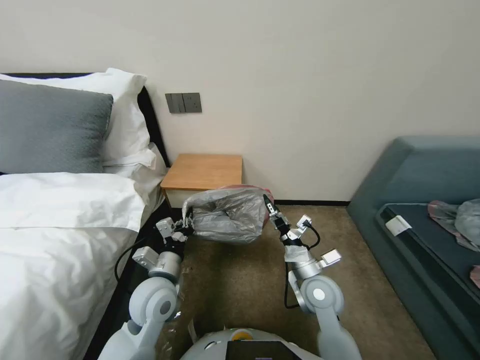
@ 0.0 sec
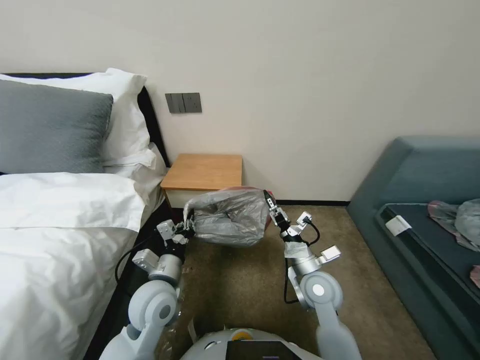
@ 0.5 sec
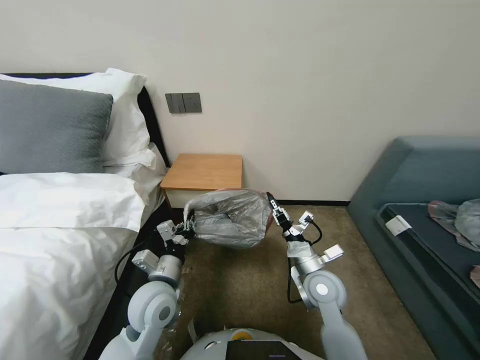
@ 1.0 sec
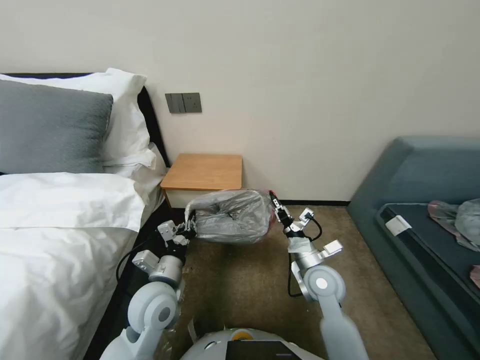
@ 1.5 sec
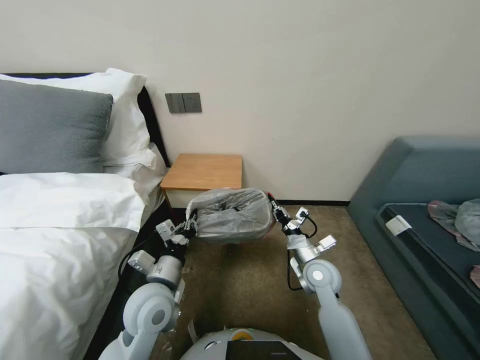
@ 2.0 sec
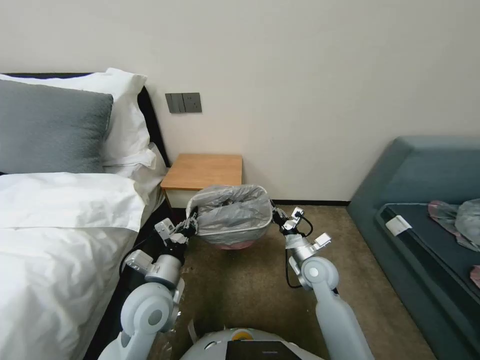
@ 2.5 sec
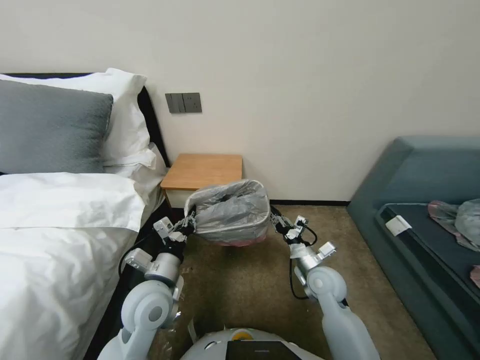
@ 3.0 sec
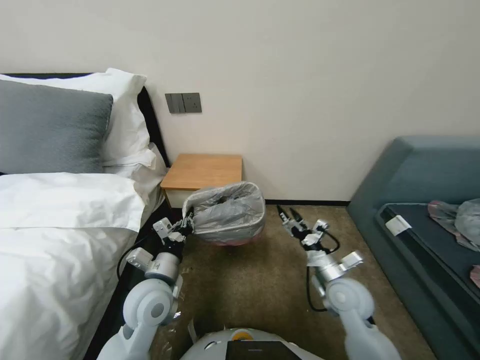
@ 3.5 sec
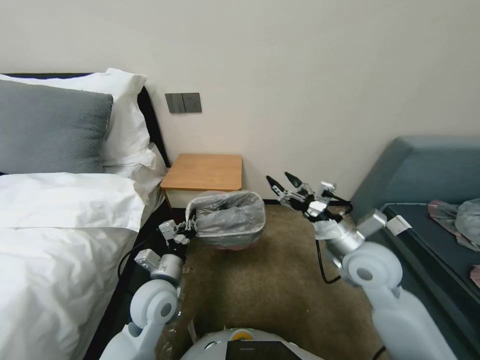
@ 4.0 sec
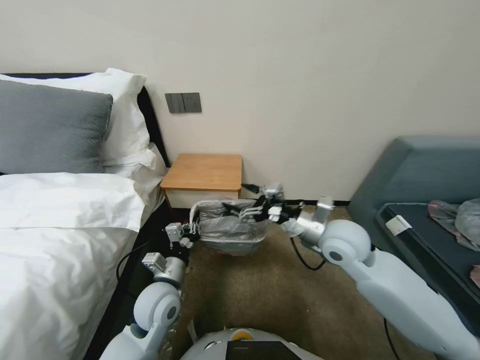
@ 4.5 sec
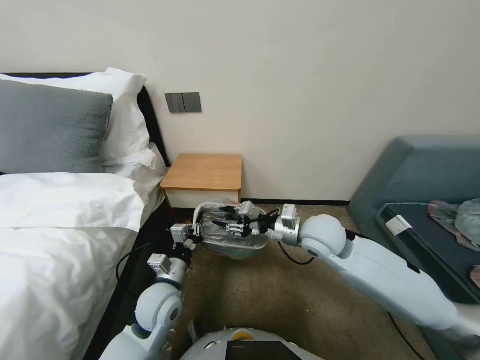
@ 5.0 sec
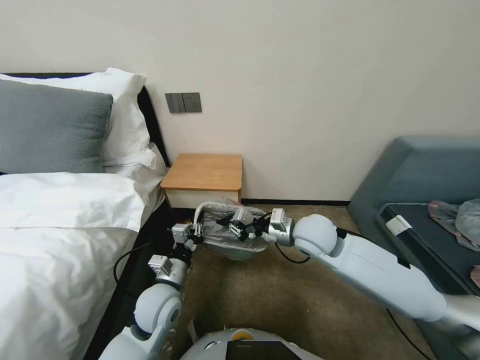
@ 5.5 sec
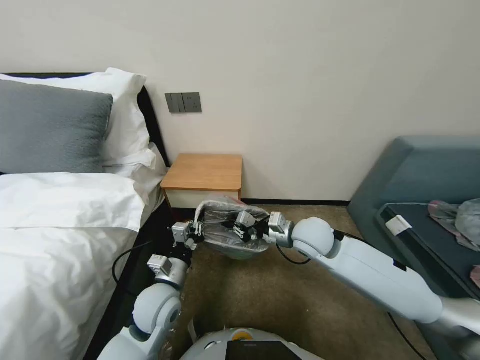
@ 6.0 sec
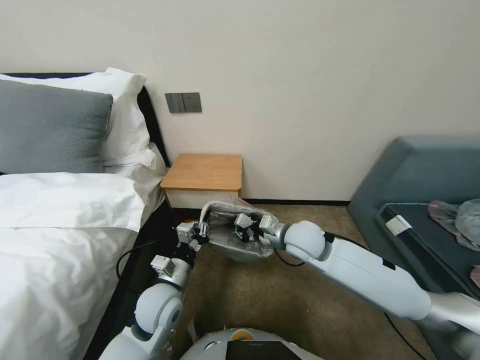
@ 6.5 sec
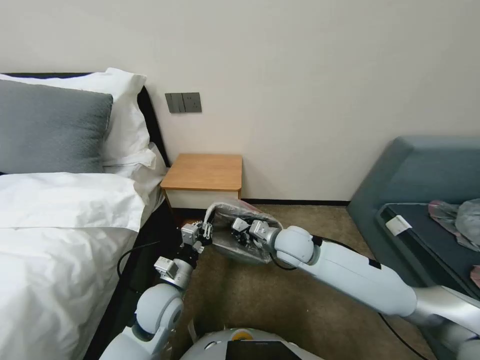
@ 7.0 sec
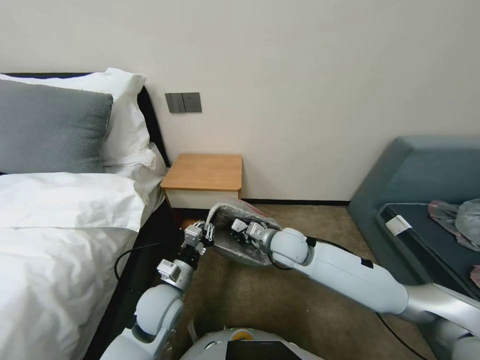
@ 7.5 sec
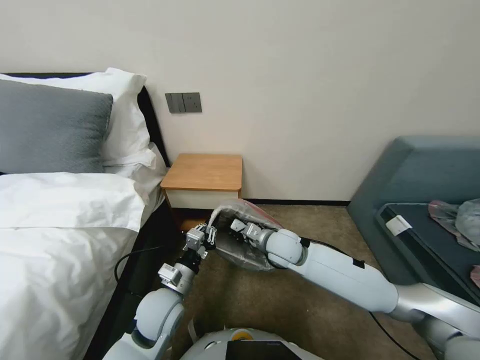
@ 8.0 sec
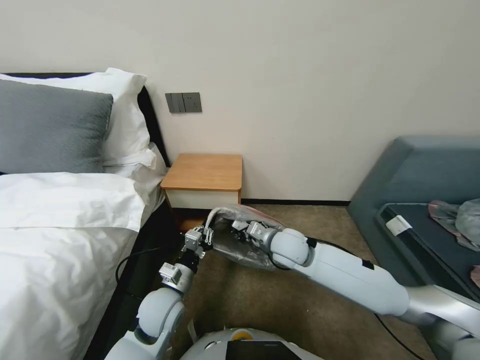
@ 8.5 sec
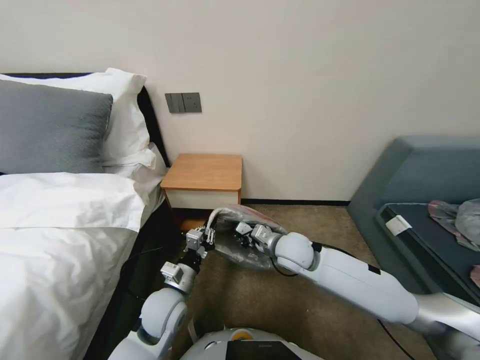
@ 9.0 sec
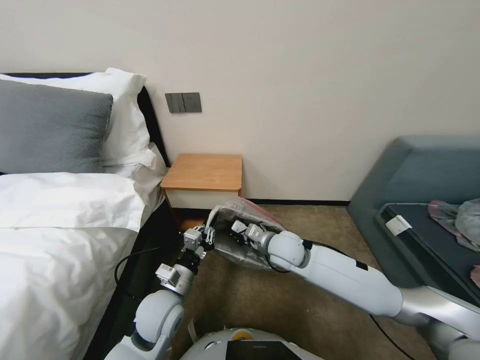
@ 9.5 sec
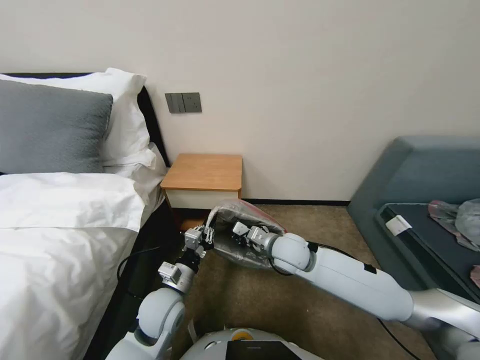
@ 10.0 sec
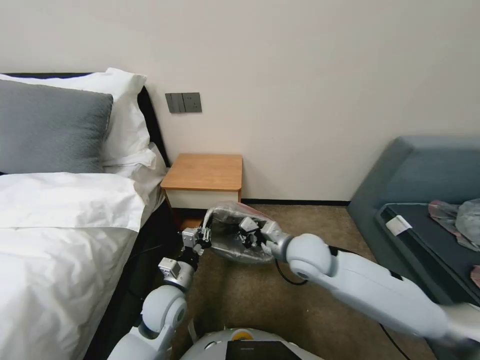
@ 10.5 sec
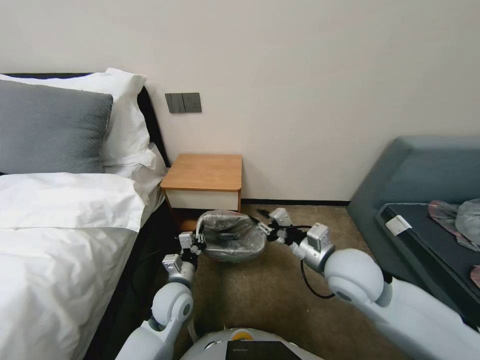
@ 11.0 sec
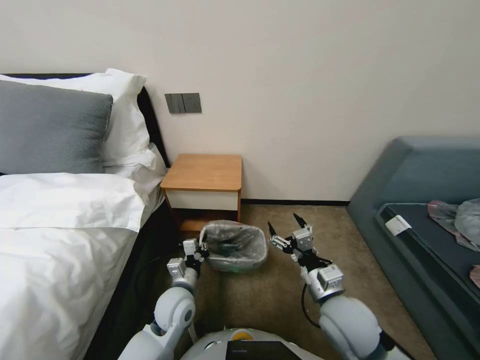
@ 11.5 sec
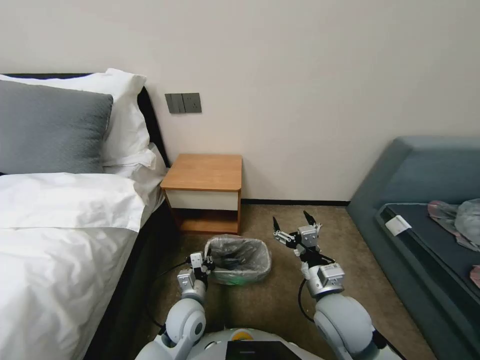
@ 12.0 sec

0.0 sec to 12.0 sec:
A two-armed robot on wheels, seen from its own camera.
Task of the whole recording: Pick up the garbage bag from the table and place it over the trash can.
0.0 sec to 2.0 sec: The right gripper is displaced forward by approximately 5 cm, and closes.
2.0 sec to 4.0 sec: The right gripper travels upward by roughly 10 cm, and opens its fingers.
4.0 sec to 6.0 sec: The right gripper travels to the left and forward by roughly 10 cm, and closes its fingers.
6.0 sec to 8.0 sec: The right gripper travels downward and to the left by some 10 cm.
8.0 sec to 10.0 sec: There are only small adjustments of the grippers.
10.0 sec to 12.0 sec: The left gripper is displaced downward by approximately 5 cm, while the right gripper moves backward and to the right, roughly 15 cm, and opens.

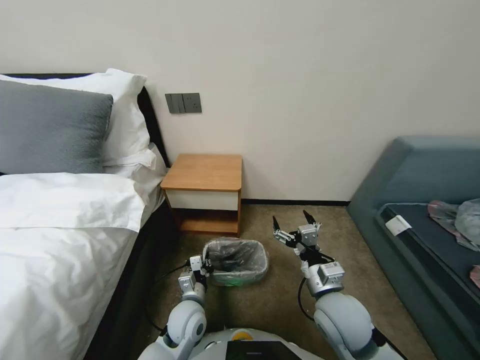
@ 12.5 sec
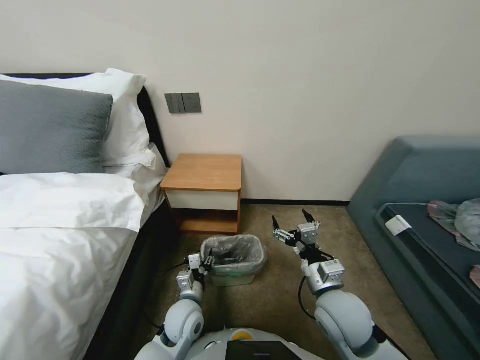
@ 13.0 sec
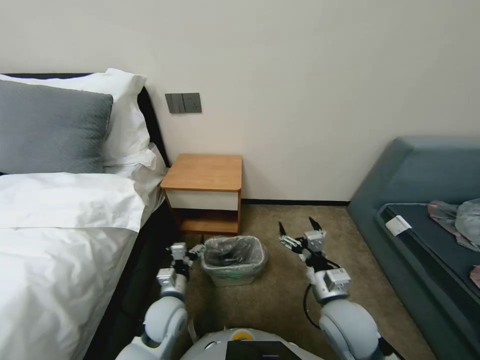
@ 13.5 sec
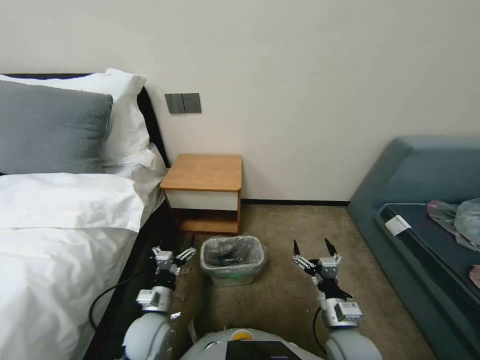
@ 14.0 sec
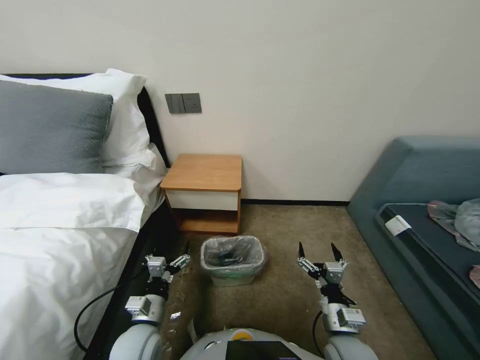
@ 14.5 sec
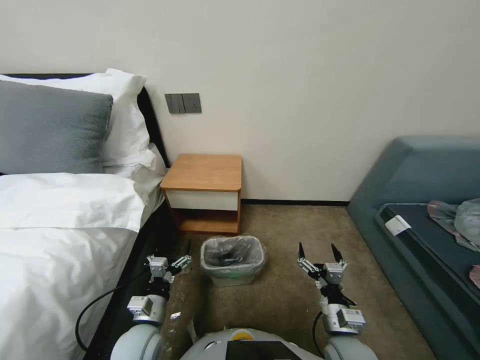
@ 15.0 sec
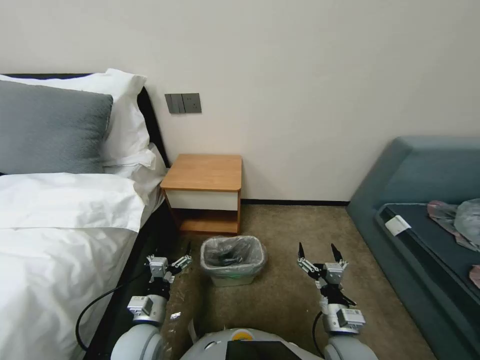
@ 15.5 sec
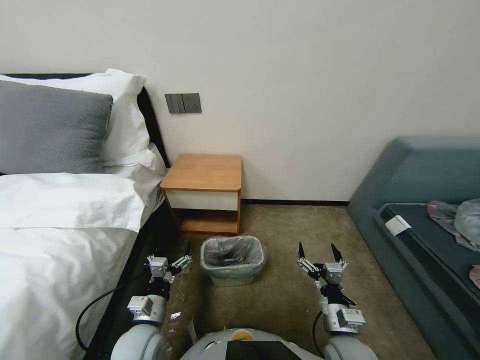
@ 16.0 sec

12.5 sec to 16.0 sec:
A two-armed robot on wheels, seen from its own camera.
Task of the whole recording: Pick up the garbage bag from the table and place it over the trash can.
12.5 sec to 14.5 sec: The left gripper moves to the left and backward, roughly 10 cm, and opens its fingers; the right gripper heads downward and backward, covering approximately 10 cm.
14.5 sec to 16.0 sec: Neither gripper changes place.

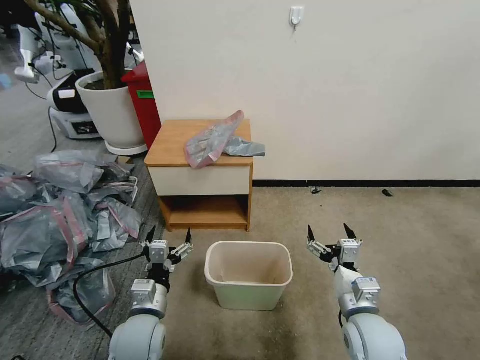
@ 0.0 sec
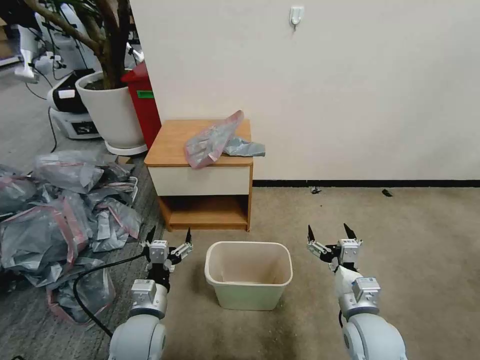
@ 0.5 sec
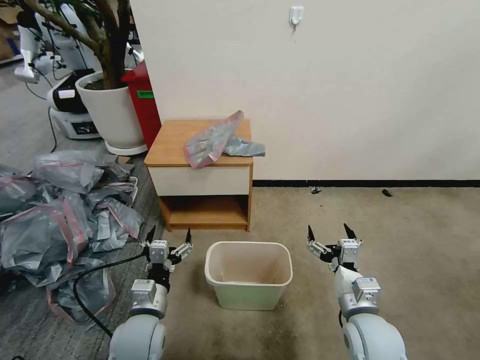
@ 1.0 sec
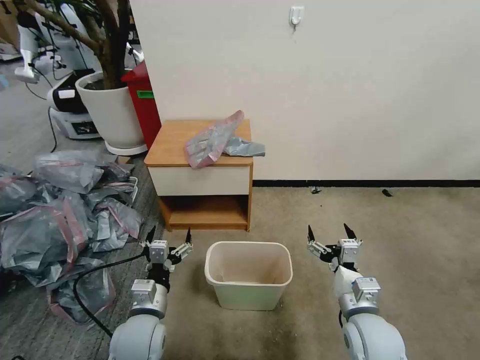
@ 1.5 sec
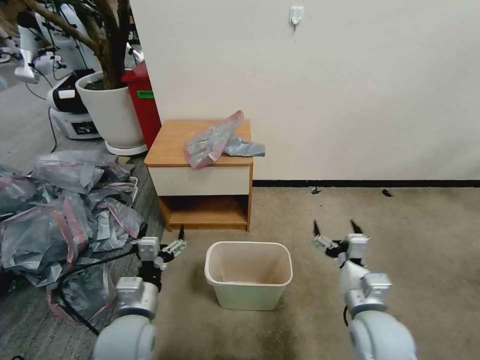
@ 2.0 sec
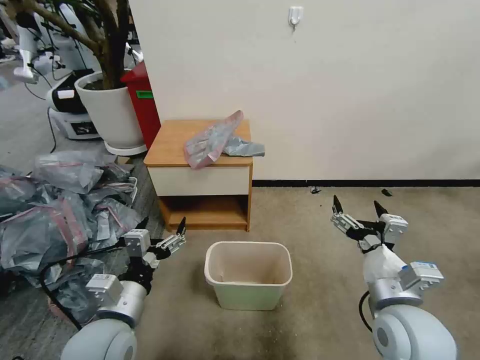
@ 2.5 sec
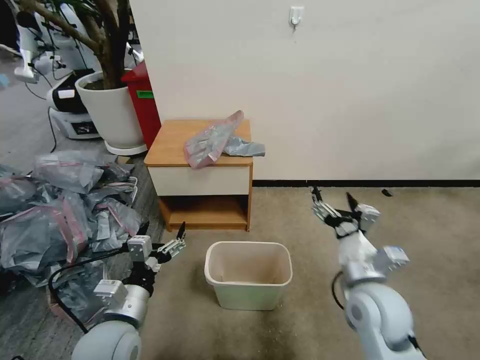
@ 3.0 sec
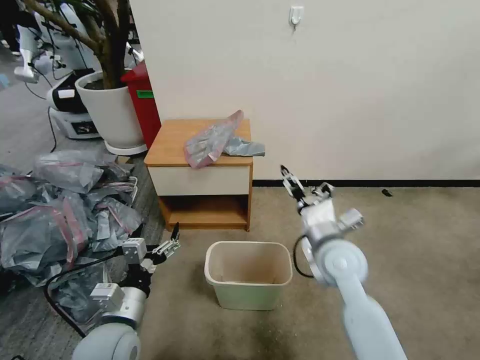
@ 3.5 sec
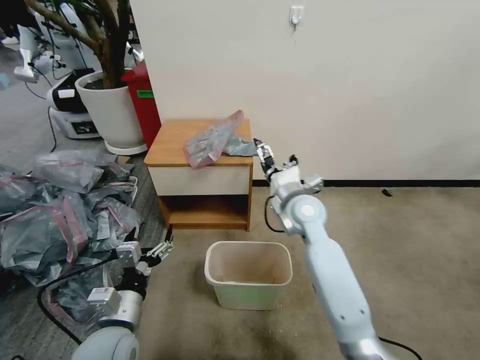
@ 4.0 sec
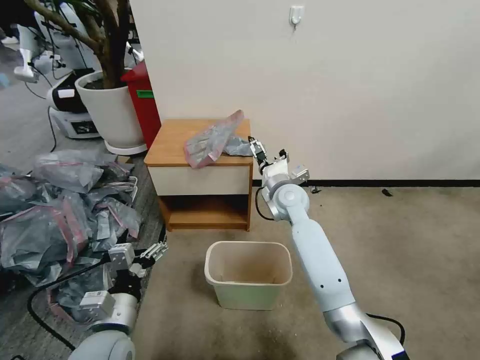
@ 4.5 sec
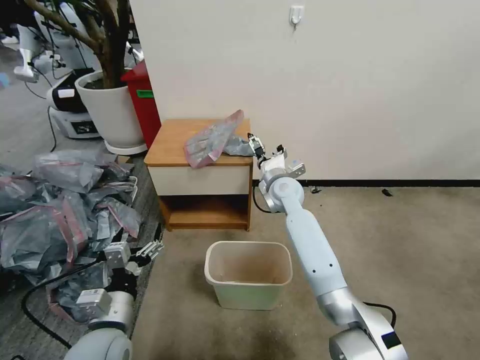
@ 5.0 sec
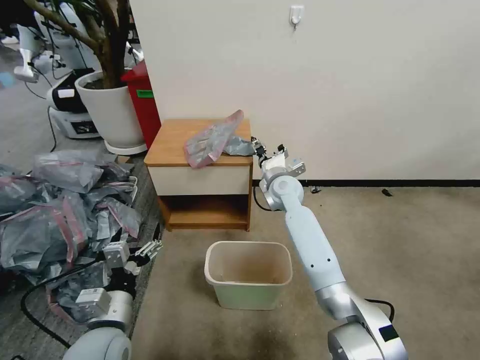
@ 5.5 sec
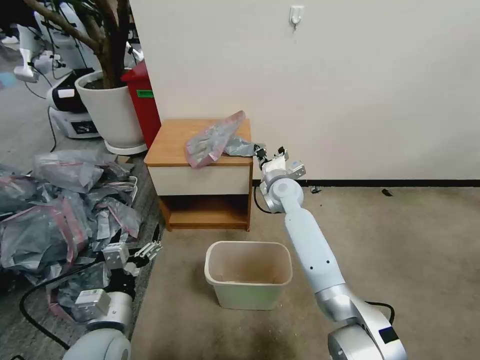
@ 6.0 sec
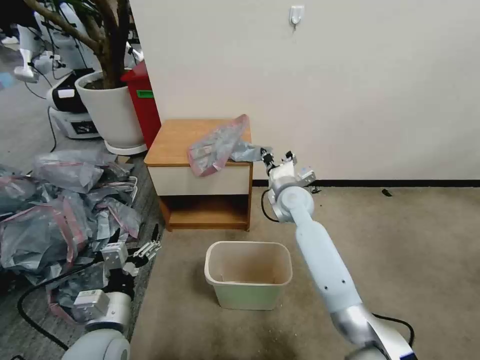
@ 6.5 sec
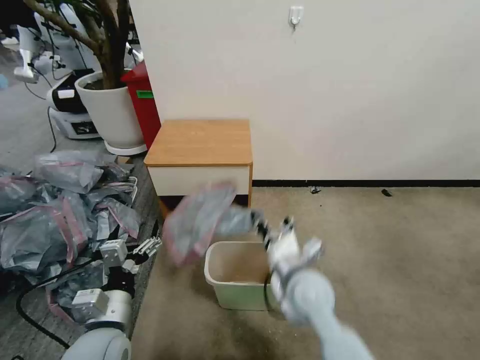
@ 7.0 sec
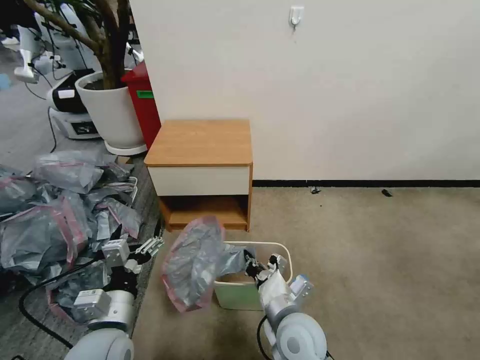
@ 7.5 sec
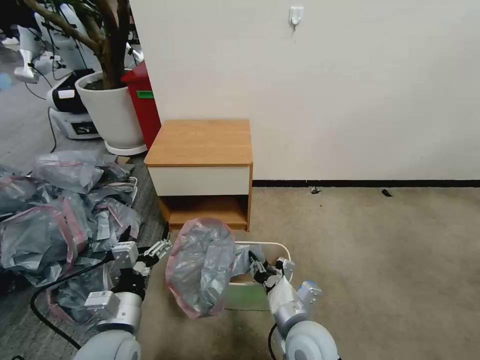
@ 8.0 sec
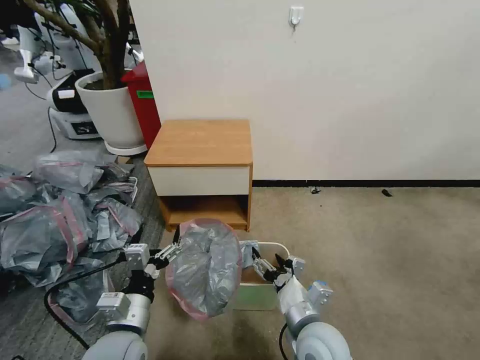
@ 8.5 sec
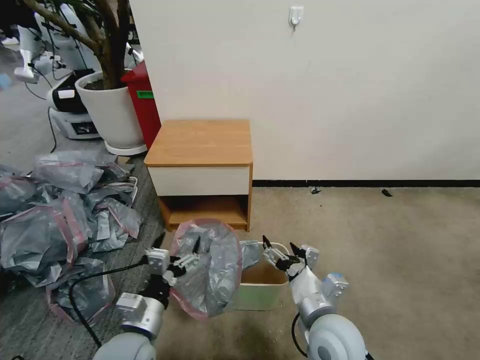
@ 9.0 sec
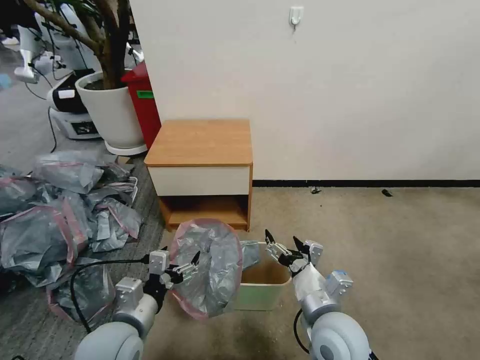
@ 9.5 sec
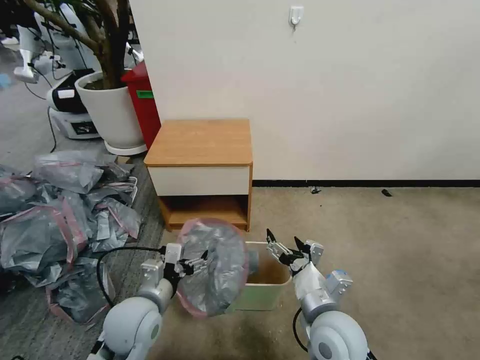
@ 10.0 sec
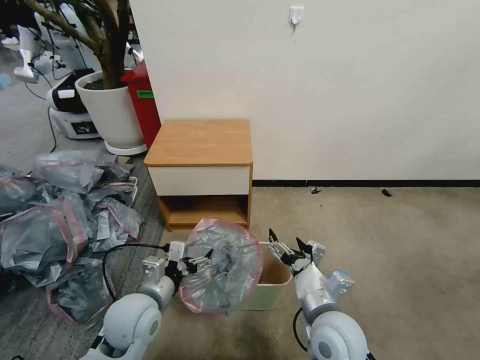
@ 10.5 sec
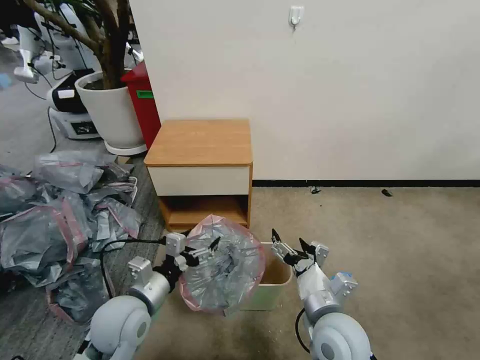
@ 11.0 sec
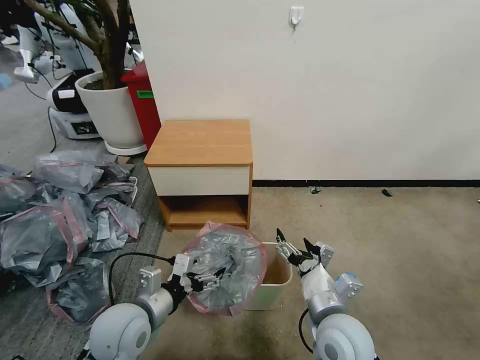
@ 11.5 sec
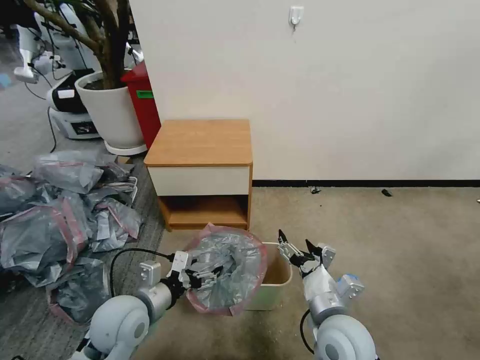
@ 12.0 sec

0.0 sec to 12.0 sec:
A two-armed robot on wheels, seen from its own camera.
Task of the whole recording: Pick up the garbage bag from the table and place it over the trash can.
2.0 sec to 4.0 sec: The right gripper travels forward and to the left by some 25 cm.
4.0 sec to 6.0 sec: The right gripper heads forward, covering roughly 10 cm, and closes.
6.0 sec to 8.0 sec: The right gripper is displaced backward by about 35 cm.
8.0 sec to 10.0 sec: The left gripper goes approximately 5 cm forward, while the right gripper changes place by roughly 5 cm, and opens its fingers.
10.0 sec to 12.0 sec: There are only small adjustments of the grippers.
